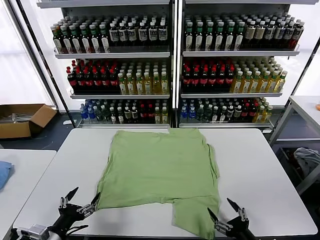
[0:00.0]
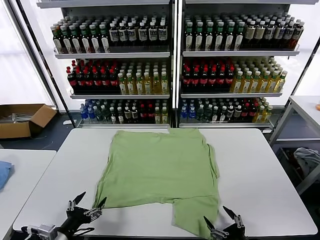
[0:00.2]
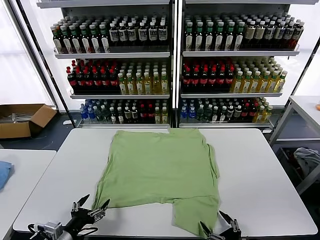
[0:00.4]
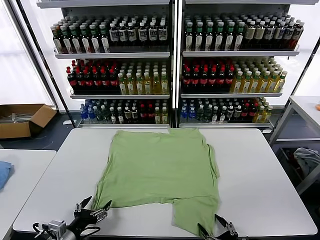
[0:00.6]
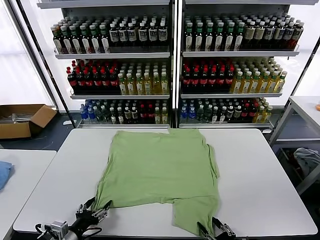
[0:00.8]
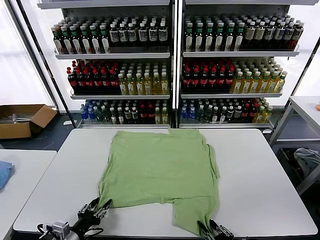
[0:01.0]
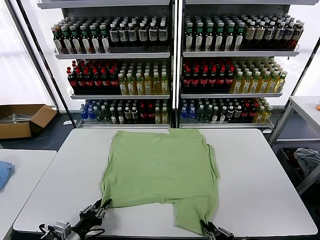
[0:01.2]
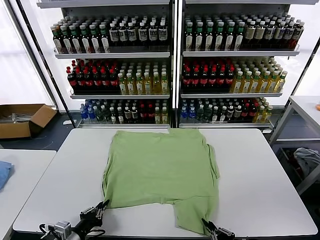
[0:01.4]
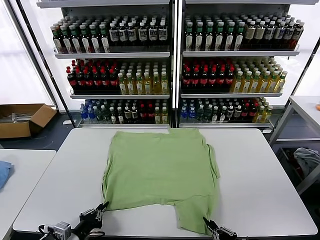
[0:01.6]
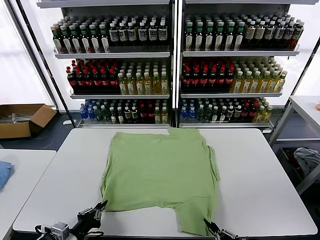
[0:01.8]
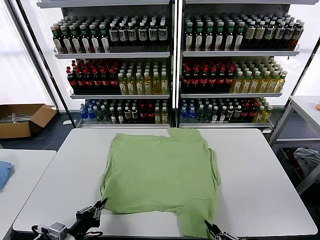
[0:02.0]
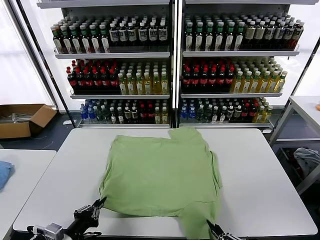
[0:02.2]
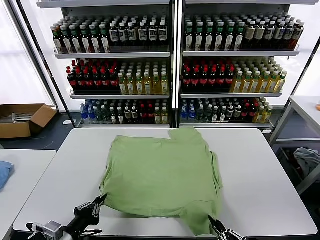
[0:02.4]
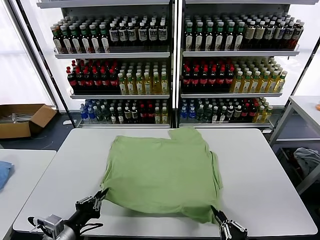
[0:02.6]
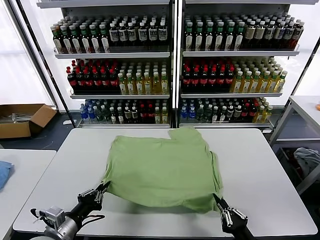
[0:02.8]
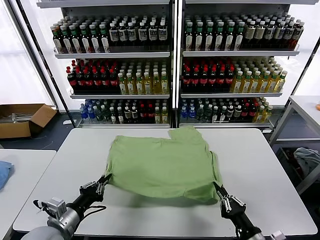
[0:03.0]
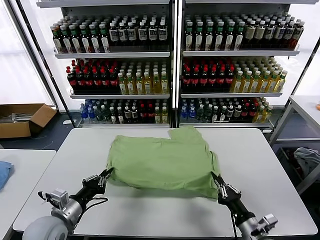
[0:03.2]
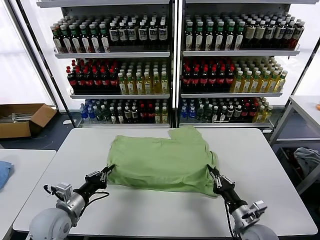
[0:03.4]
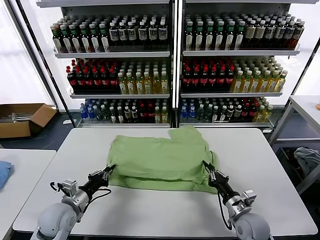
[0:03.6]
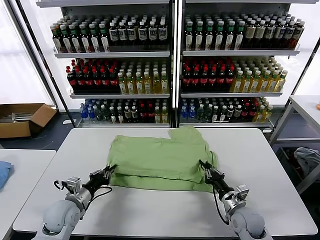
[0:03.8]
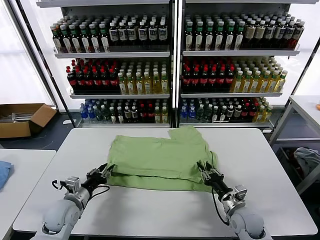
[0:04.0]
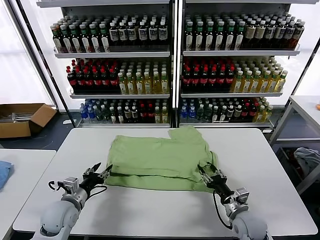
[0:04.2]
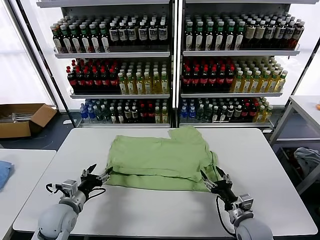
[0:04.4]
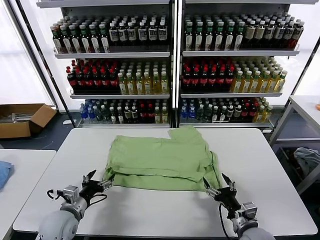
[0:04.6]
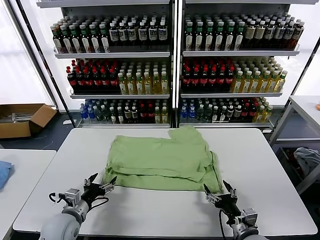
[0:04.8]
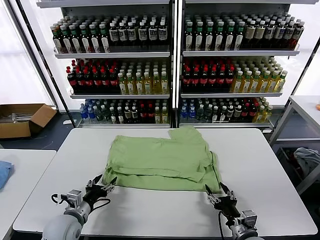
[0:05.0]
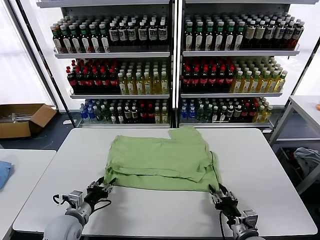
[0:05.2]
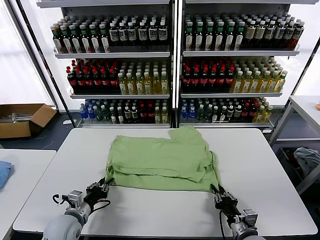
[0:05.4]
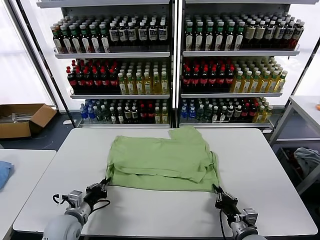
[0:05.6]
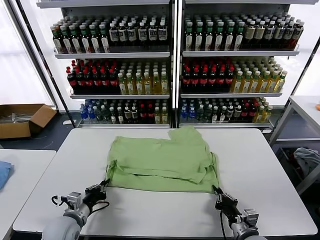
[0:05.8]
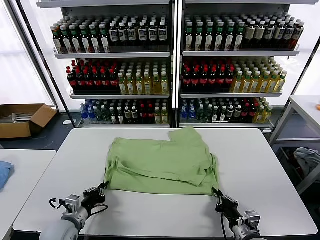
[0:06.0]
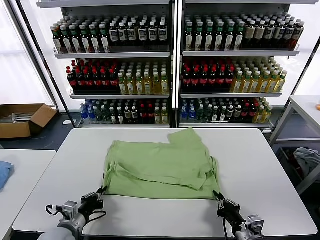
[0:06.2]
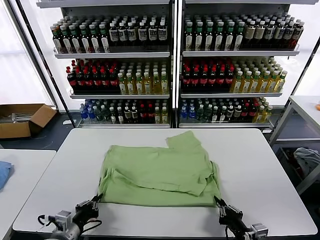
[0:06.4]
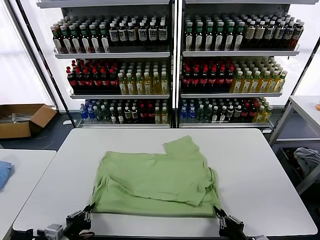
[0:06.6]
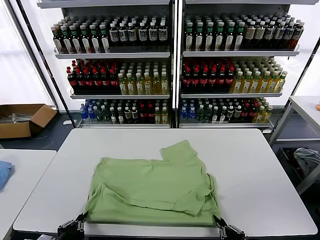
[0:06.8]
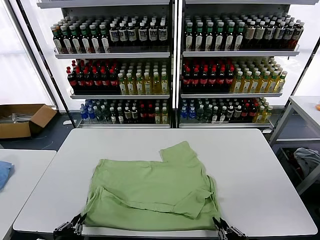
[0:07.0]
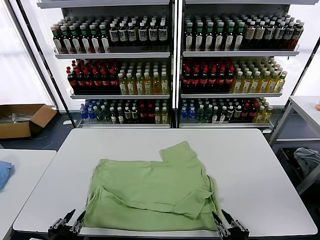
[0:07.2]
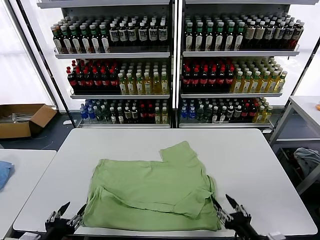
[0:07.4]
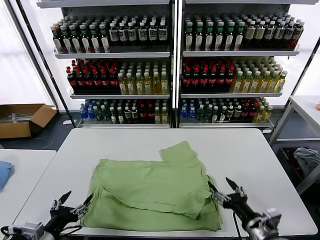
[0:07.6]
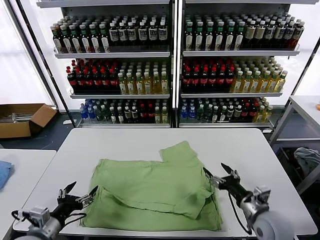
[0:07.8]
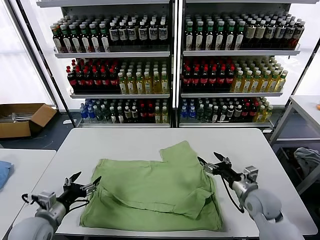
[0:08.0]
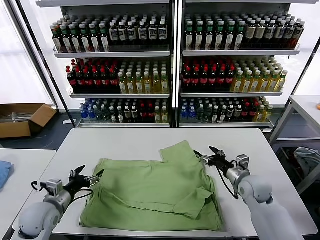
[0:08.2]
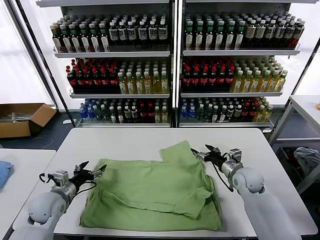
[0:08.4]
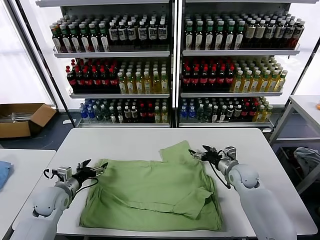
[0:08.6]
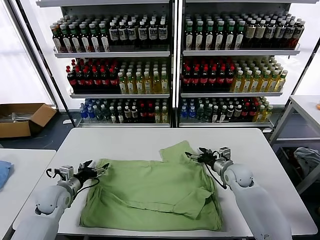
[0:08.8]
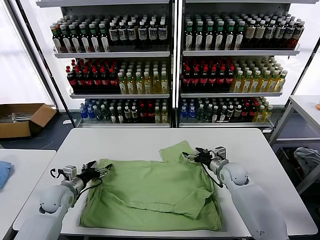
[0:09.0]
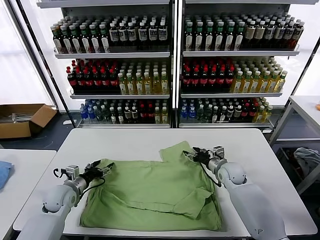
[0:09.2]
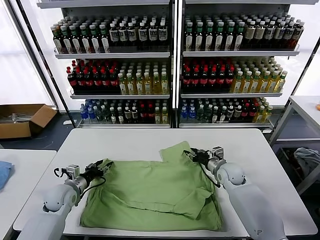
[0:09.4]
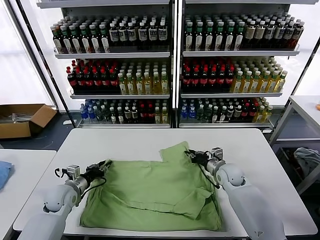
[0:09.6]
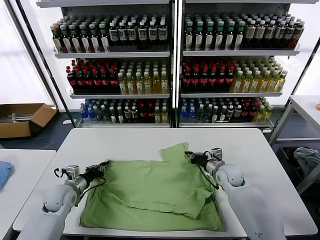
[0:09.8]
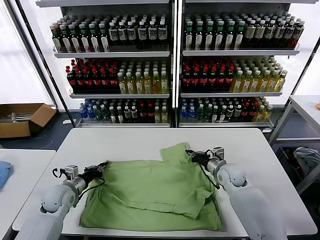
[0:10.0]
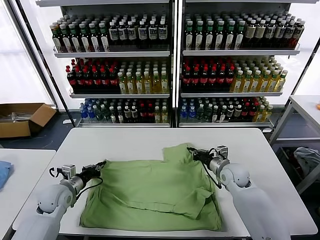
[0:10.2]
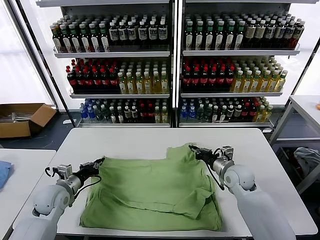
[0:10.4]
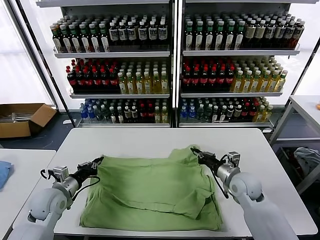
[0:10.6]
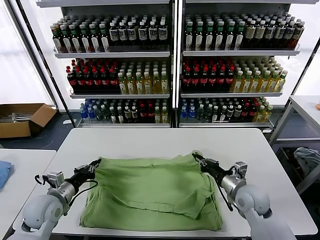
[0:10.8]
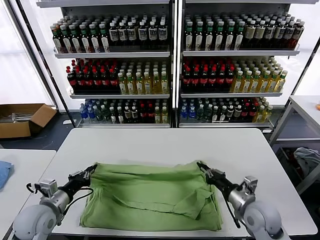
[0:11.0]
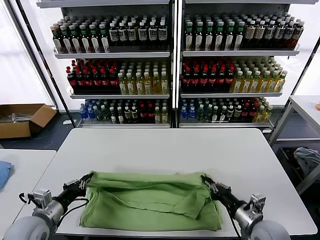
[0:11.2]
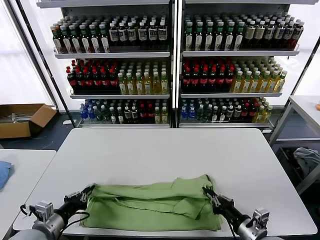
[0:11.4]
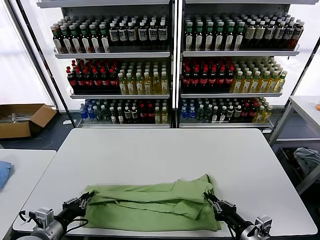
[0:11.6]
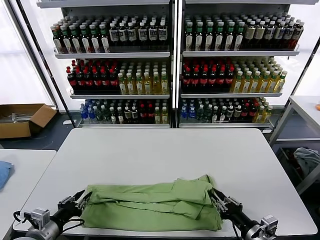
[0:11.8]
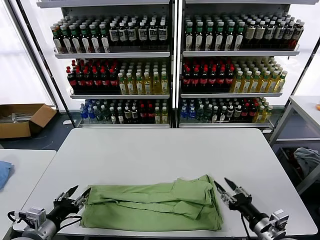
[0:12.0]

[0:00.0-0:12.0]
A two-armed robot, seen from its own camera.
Task of the whole recording: fold and organize the clothes.
Step, 0:00.0 to 0:01.4: use both grippers simultaneously to clamp the lower edge of the clothing fabric.
Step, 0:01.6 to 0:04.2: use both grippers to drag the lower edge of the fabric forward and fold it over the upper edge.
Step, 0:04.6 to 0:07.2: Drag the clothes downward with both gripper.
Step, 0:07.4 to 0:09.8: use both grippers simultaneously to clamp the upper edge of the clothing fabric.
Step, 0:10.0 to 0:11.8: use both grippers to drag the upper edge of the fabric backward and fold it over the lower edge.
0:01.6 to 0:03.0: The left gripper goes some 5 cm upward; the right gripper shifts roughly 10 cm forward.
0:03.0 to 0:04.4: The right gripper moves forward, approximately 5 cm, and opens up; the left gripper shifts about 10 cm forward and downward, and opens up.
0:04.4 to 0:06.0: The right gripper closes up; the left gripper closes up.
0:06.0 to 0:07.6: The left gripper shifts roughly 15 cm backward and upward, and opens its fingers. Meanwhile the right gripper shifts about 5 cm upward, travels backward and back again, roughly 10 cm each way, and opens.
0:07.6 to 0:09.0: The two grippers go about 25 cm forward.
0:09.0 to 0:10.4: The left gripper closes up, while the right gripper goes approximately 5 cm backward, and closes its fingers.
0:10.4 to 0:12.0: The grippers both shift backward by roughly 20 cm. The right gripper opens its fingers. The left gripper opens.

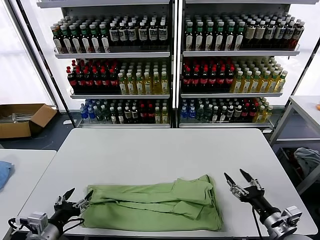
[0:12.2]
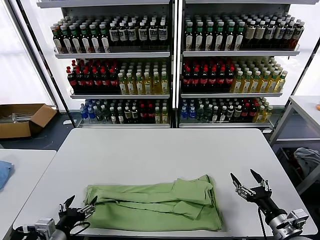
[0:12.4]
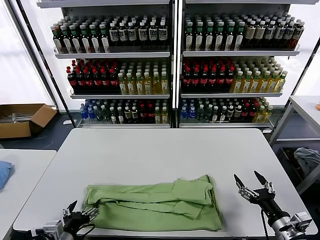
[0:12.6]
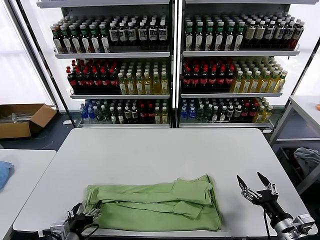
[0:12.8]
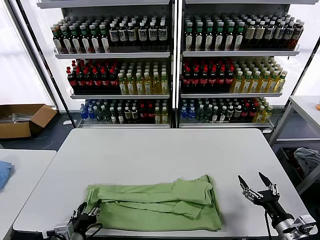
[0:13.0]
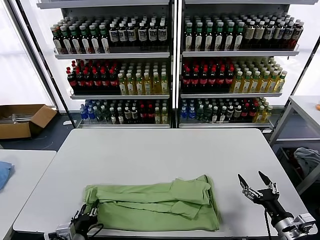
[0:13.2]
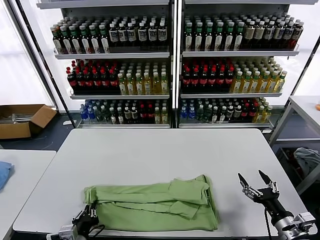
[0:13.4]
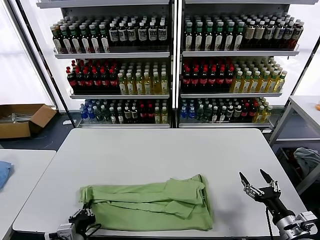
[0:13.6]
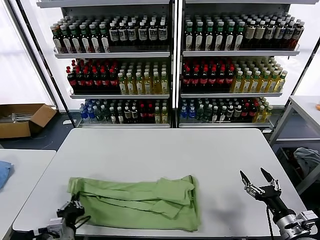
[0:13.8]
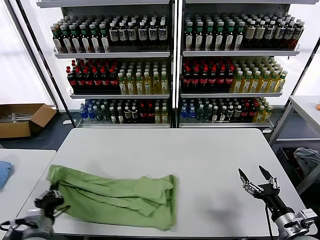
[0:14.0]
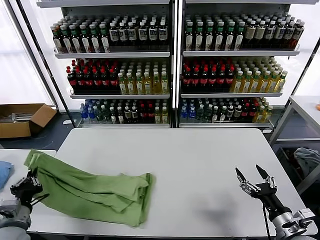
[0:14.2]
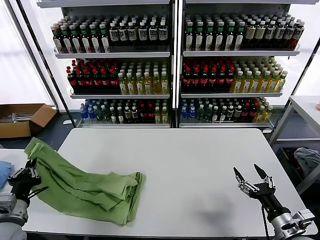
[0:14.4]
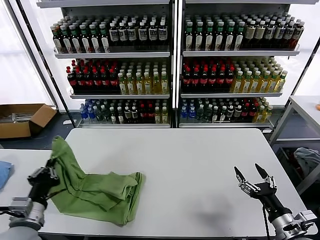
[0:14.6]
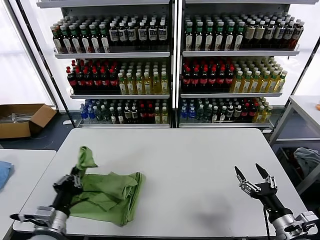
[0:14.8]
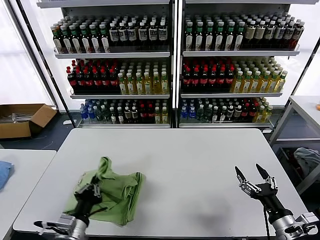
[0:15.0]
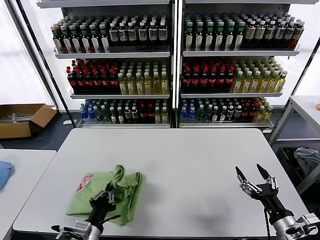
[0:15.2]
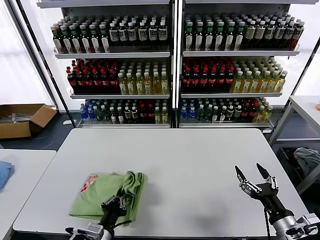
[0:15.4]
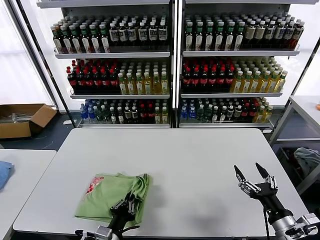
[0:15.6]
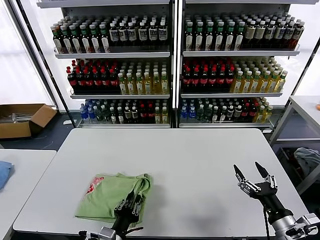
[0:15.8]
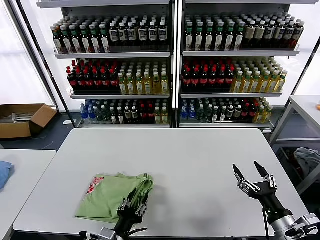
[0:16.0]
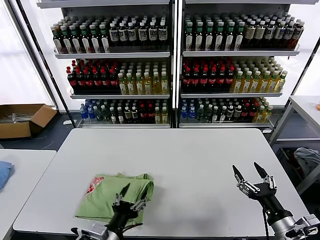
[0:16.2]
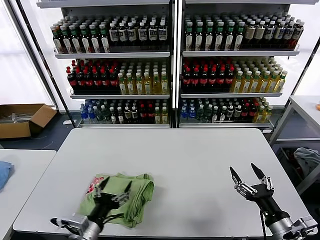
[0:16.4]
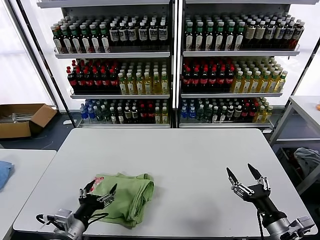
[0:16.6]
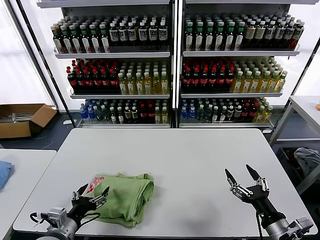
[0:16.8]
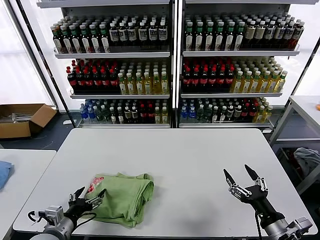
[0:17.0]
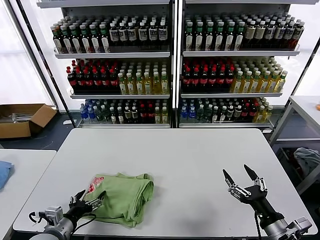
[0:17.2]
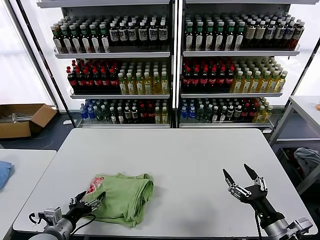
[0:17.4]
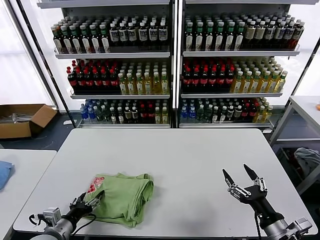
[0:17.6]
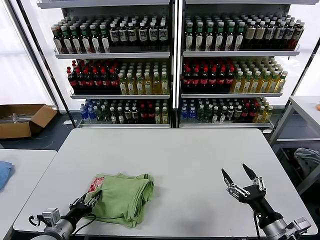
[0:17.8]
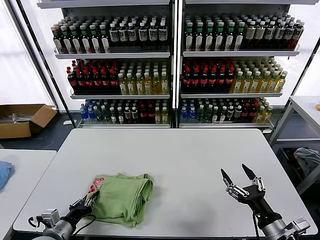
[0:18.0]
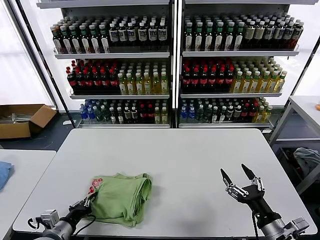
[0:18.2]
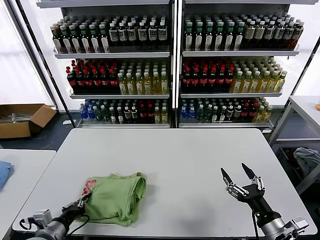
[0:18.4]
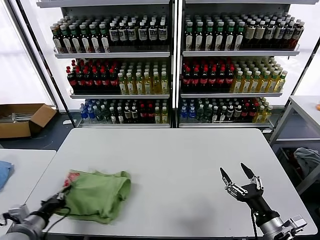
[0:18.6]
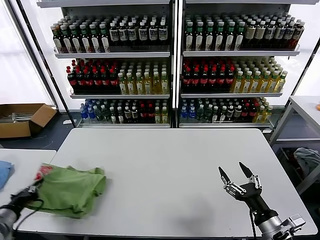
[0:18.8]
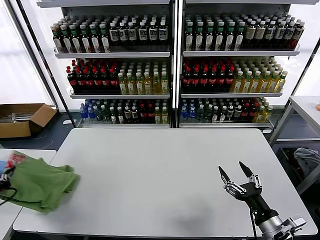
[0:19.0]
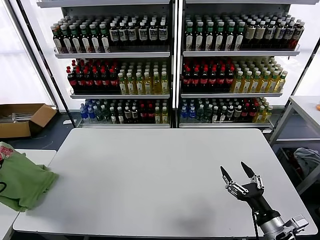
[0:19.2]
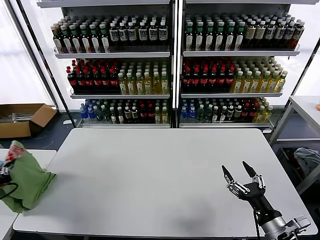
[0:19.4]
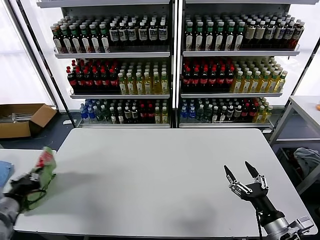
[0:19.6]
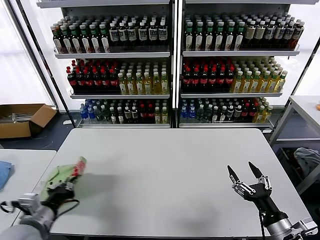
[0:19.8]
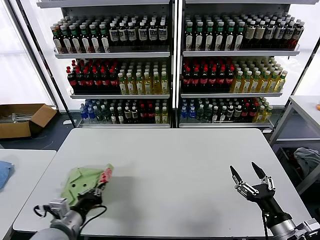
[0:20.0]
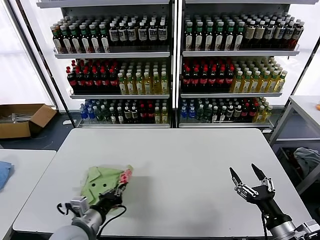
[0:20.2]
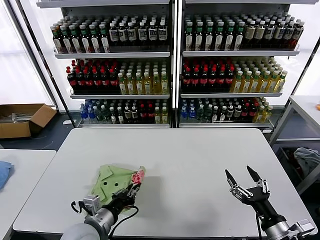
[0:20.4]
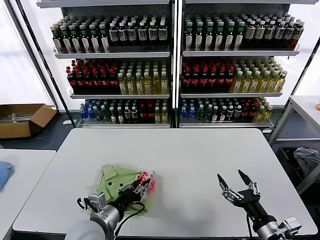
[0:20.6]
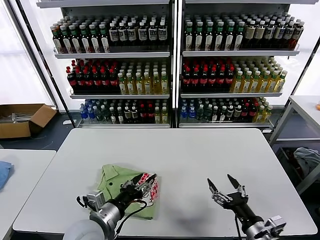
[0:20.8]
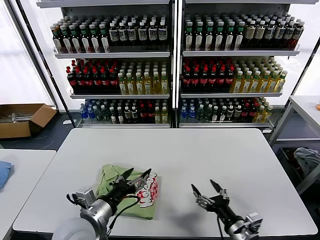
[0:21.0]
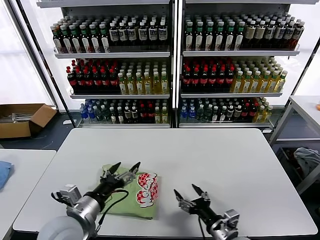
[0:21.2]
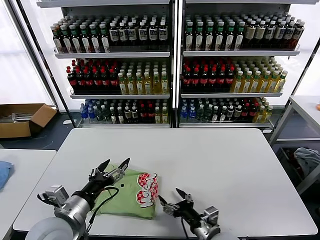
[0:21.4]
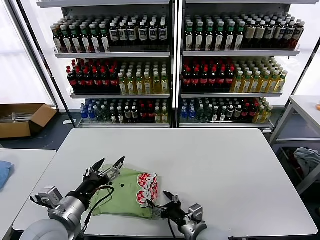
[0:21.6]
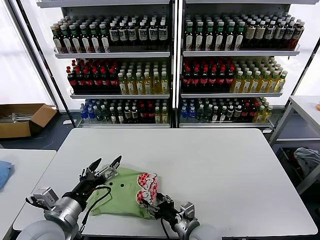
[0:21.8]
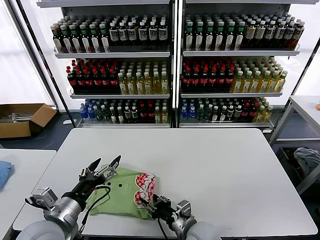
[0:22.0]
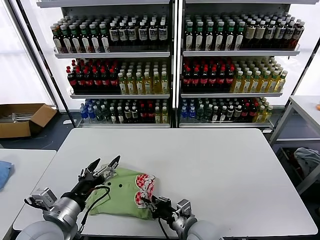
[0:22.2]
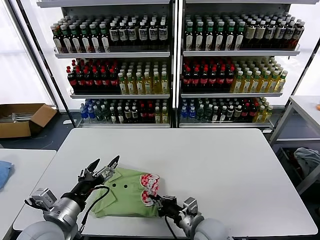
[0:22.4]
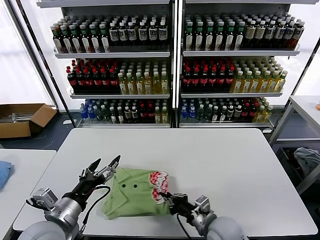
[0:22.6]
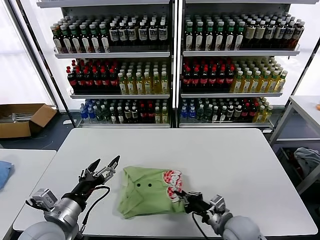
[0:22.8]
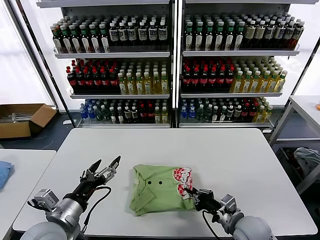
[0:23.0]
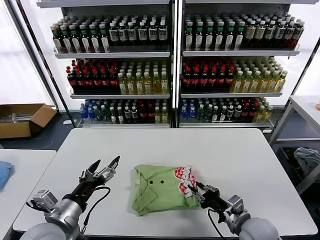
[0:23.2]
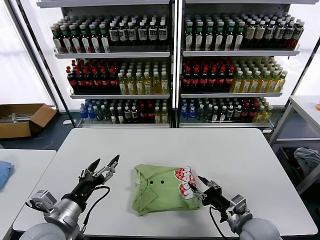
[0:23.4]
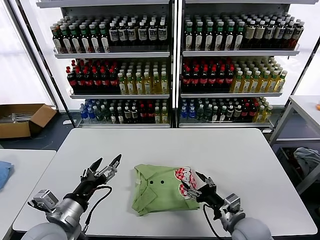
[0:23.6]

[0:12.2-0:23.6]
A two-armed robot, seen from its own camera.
Task of the whole recording: fold and organize the clothes.
Step, 0:12.2 to 0:13.6: use the left gripper to clamp the left edge of the fabric.
Step, 0:13.8 to 0:16.0: use the left gripper to drag the left edge of the fabric to the left and folds it over the right edge.
Step, 0:16.2 to 0:20.8: Flip the folded clothes over with left gripper.
0:12.2 to 0:13.6: The left gripper heads to the right and downward, covering about 10 cm, and closes.
0:13.6 to 0:15.0: The left gripper moves upward, roughly 5 cm, and goes to the left and returns, some 15 cm each way.
0:15.0 to 0:16.4: The left gripper opens.
0:16.4 to 0:17.8: The left gripper goes approximately 15 cm to the left.
0:17.8 to 0:19.4: The left gripper travels upward and to the left by some 25 cm, and closes its fingers.
0:19.4 to 0:20.8: The left gripper moves to the right, about 30 cm, and opens up.
0:20.8 to 0:22.2: The left gripper moves to the left and upward, roughly 10 cm, and opens its fingers; the right gripper shifts approximately 20 cm to the left and forward, and closes.
0:22.2 to 0:23.6: The right gripper moves to the right, about 15 cm, and opens up.
